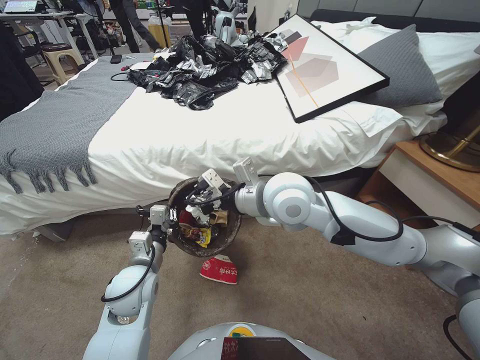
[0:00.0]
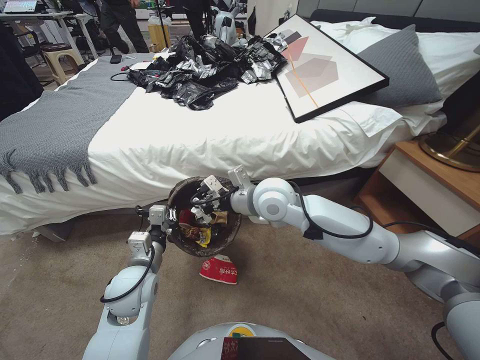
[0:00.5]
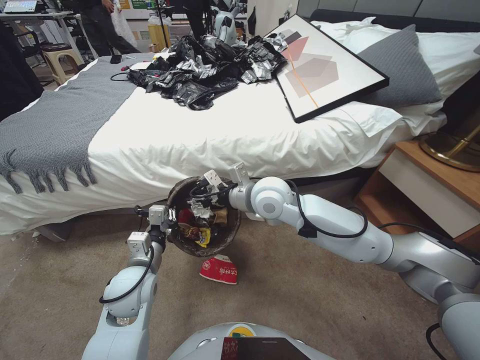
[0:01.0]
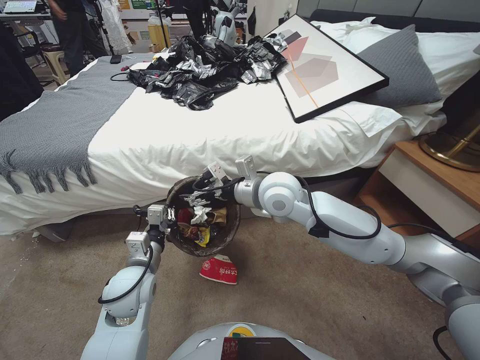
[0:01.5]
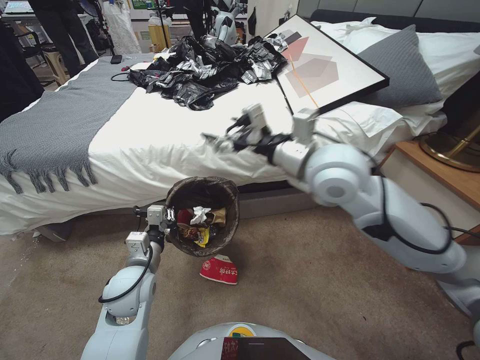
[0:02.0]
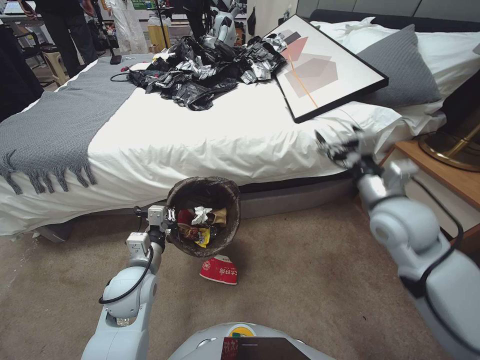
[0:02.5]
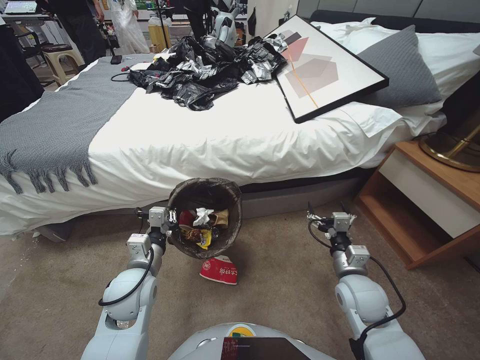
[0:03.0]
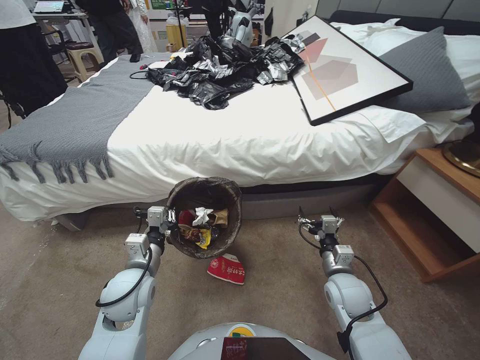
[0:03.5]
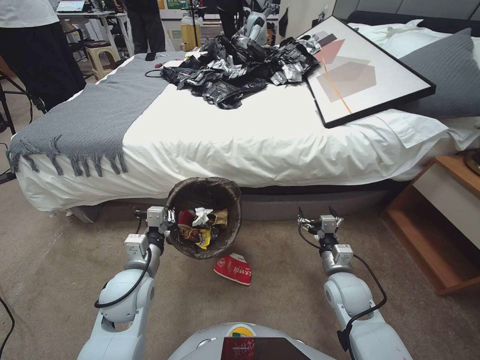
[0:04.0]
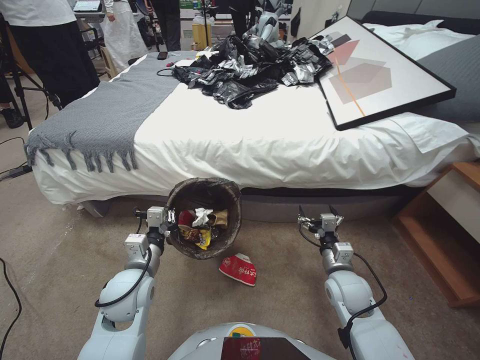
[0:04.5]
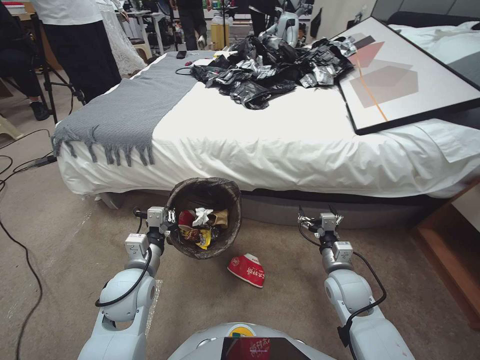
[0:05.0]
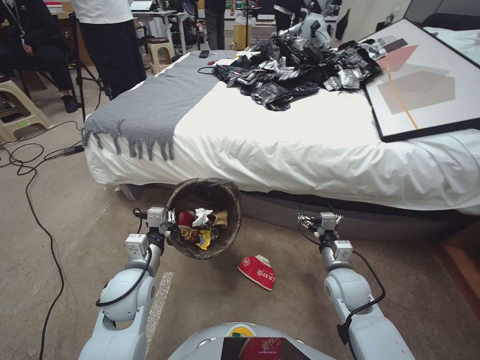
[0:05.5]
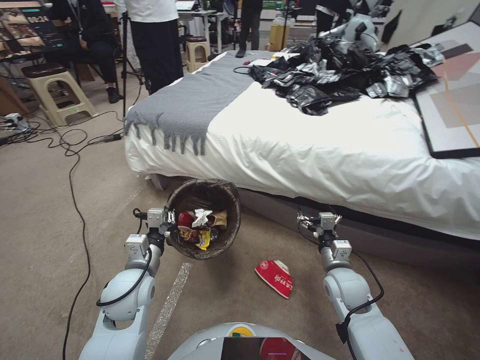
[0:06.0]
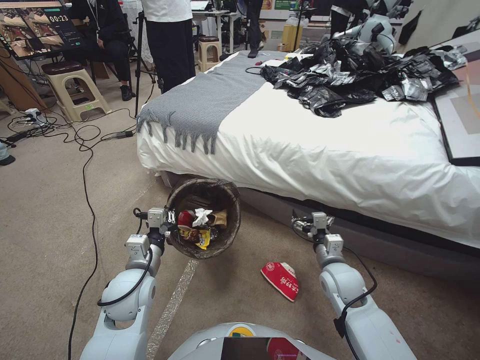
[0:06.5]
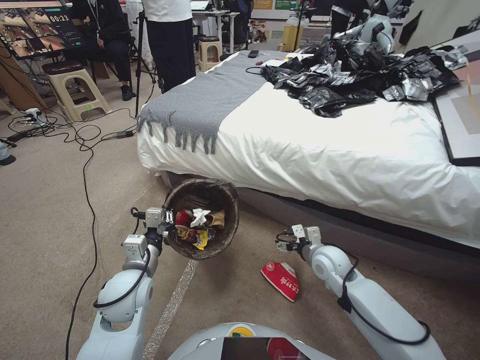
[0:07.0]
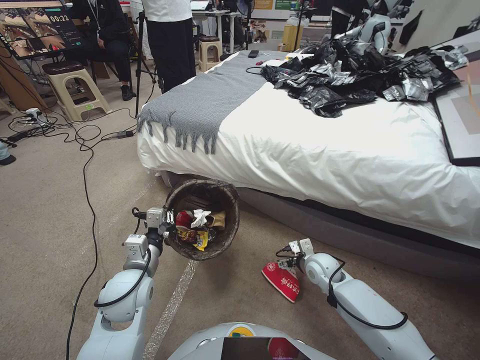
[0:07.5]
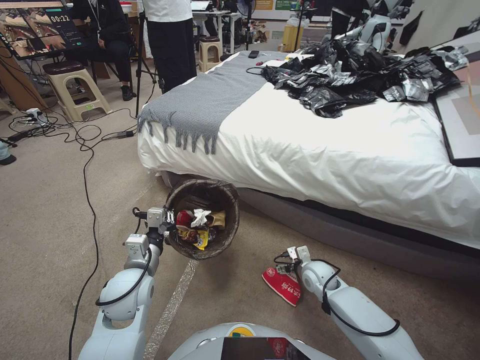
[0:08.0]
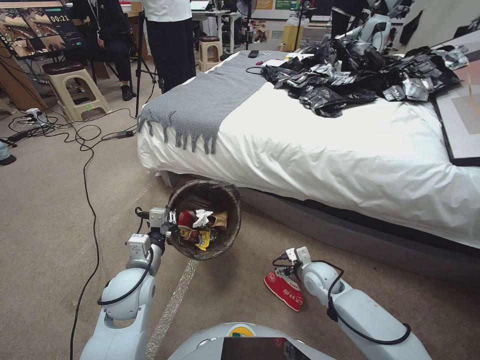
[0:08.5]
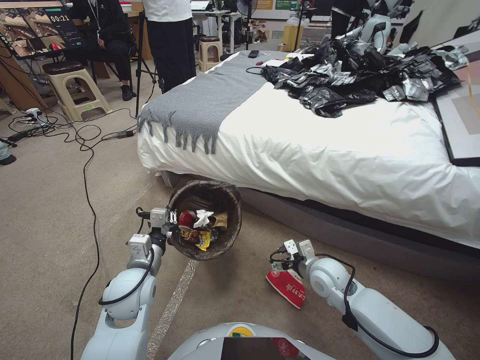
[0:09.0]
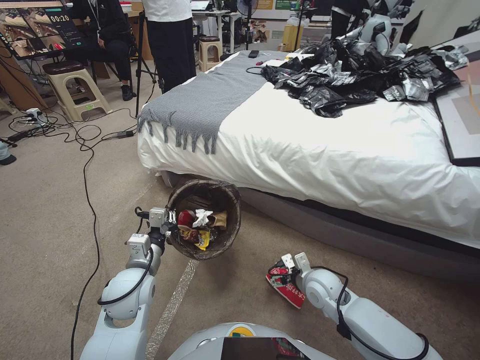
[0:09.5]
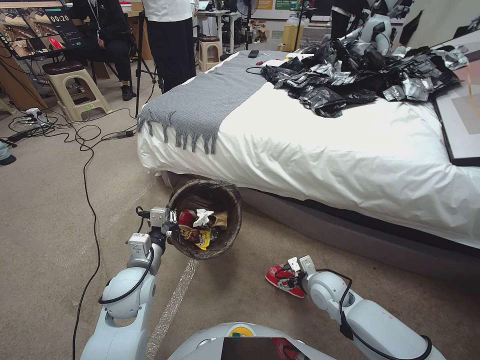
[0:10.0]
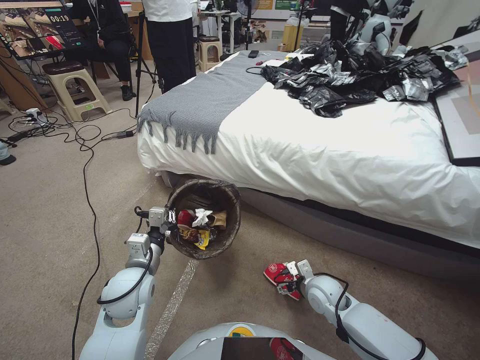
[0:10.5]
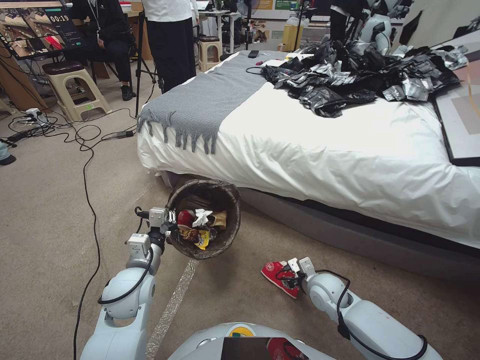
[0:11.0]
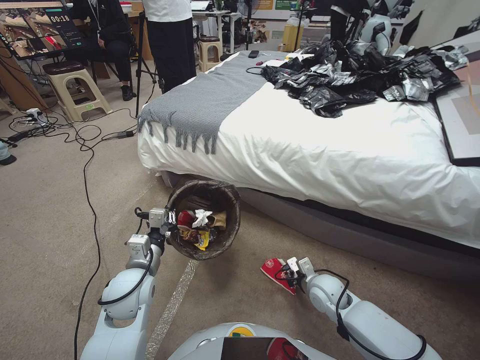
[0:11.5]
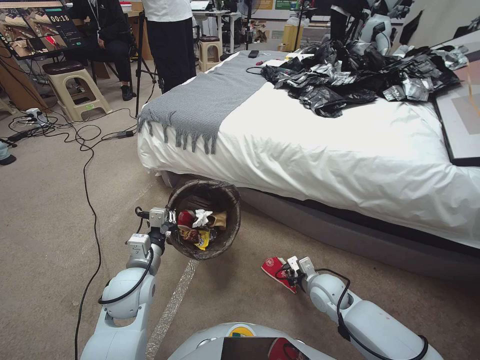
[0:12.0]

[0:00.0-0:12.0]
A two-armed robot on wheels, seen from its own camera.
Task of the whole recording: Pick up the trash bin, then pick up the garbage from the floor and place it into the trash bin.
0:00.0 to 0:02.0: The right gripper moves about 5 cm downward and comes back, and opens.
0:02.0 to 0:04.0: The right gripper shifts roughly 35 cm downward and to the right.
0:06.0 to 0:08.0: The right gripper shifts roughly 10 cm downward and forward.
0:08.0 to 0:10.0: The right gripper moves backward, approximately 5 cm.
0:10.0 to 0:12.0: The right gripper closes.

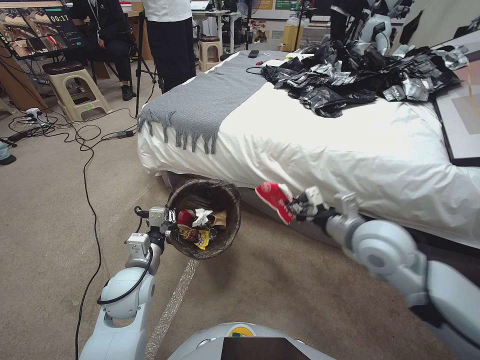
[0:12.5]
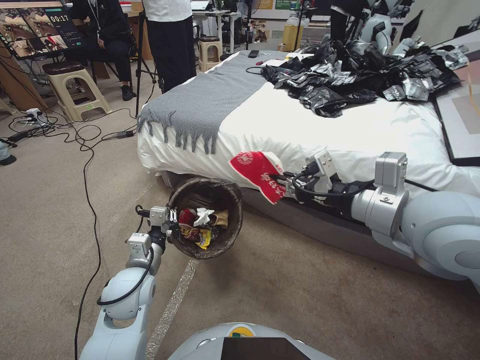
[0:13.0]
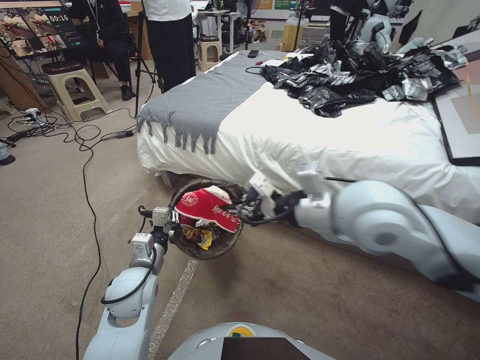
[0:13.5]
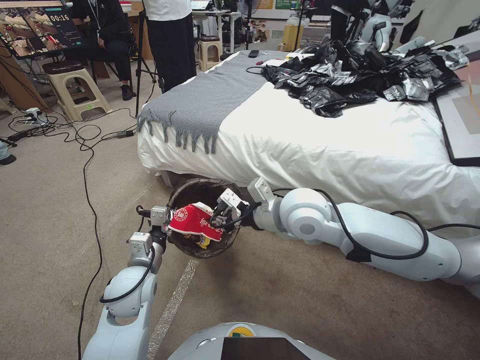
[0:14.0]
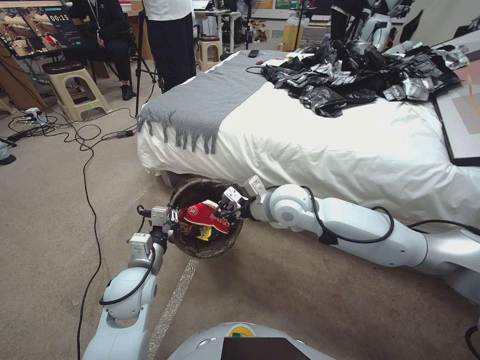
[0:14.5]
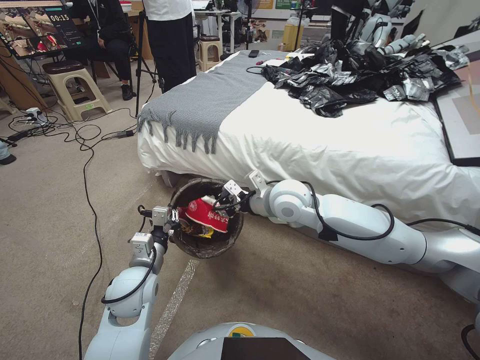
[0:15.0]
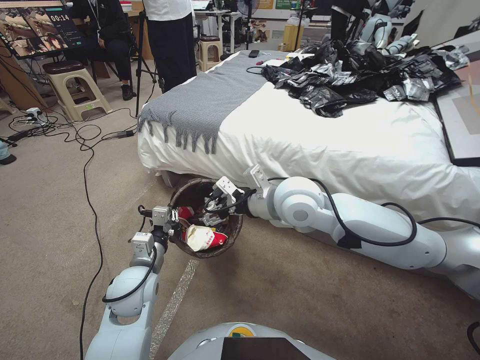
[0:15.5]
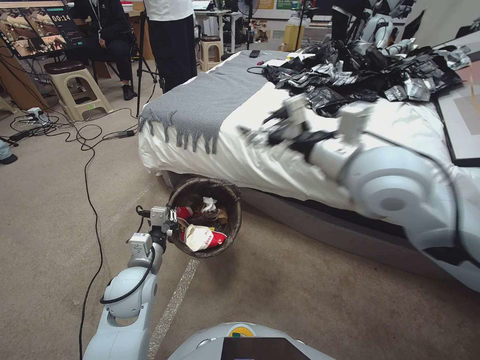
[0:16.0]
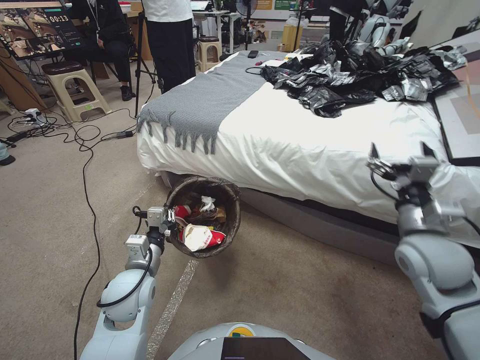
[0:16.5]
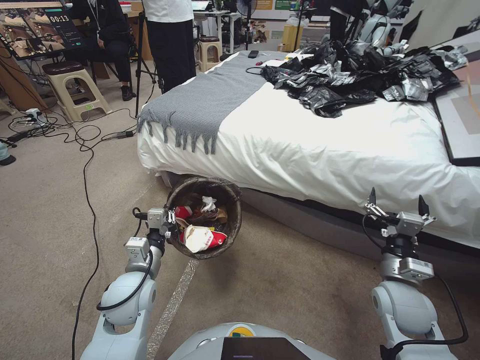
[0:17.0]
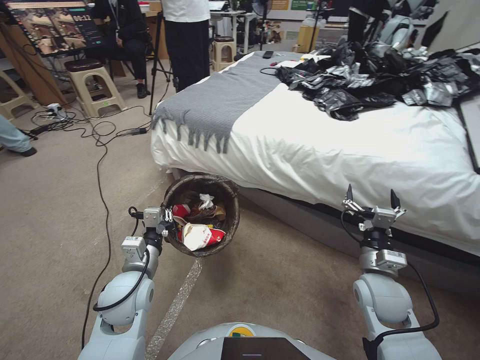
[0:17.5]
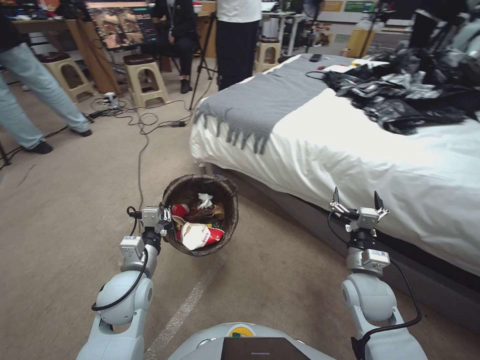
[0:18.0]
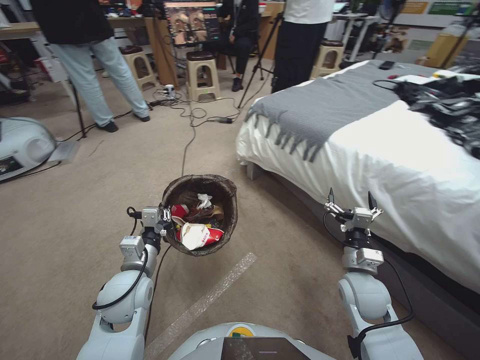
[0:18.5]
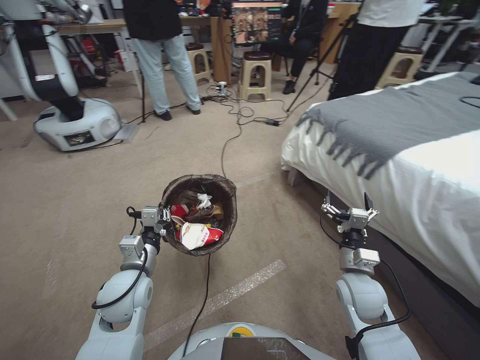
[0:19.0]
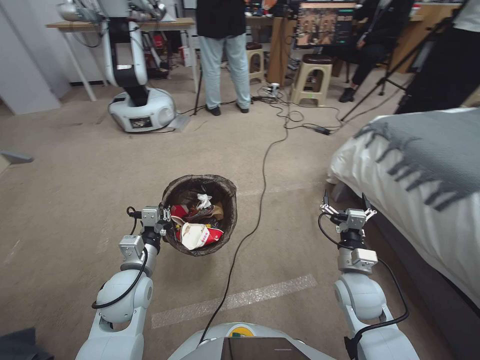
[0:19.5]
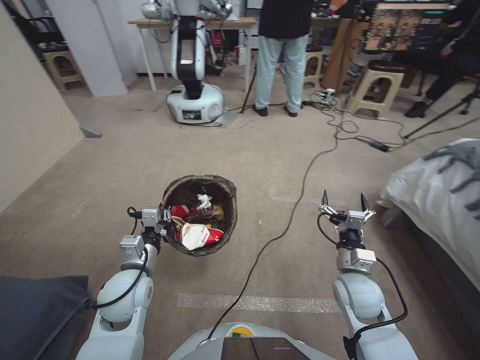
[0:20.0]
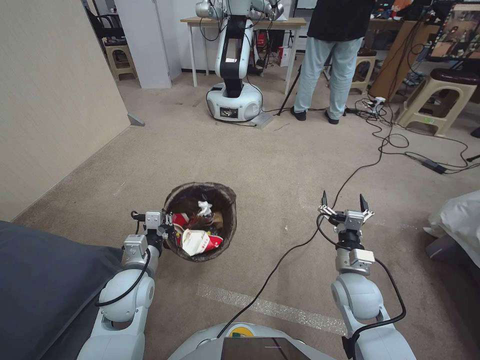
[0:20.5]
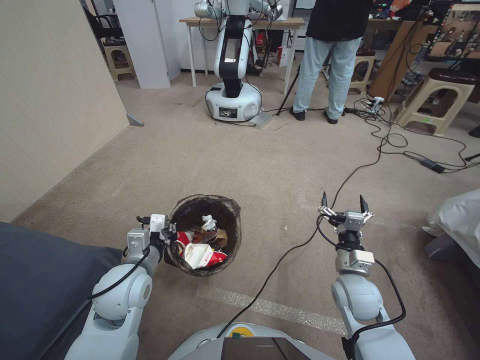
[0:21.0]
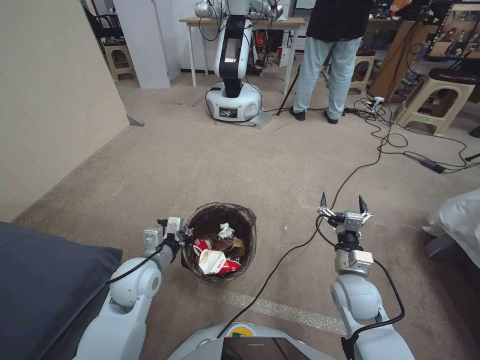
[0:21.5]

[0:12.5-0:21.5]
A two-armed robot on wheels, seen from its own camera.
Task of the whole recording: Pick up the trash bin, then pick up the garbage from the floor and place it into the trash bin.
0:12.5 to 0:14.5: The right gripper is displaced to the left and forward by roughly 15 cm, and goes upward and returns, approximately 20 cm each way.
0:14.5 to 0:17.0: The right gripper heads to the right, backward and downward, covering some 30 cm, and opens up.
0:17.0 to 0:19.5: The right gripper moves to the left, some 5 cm.

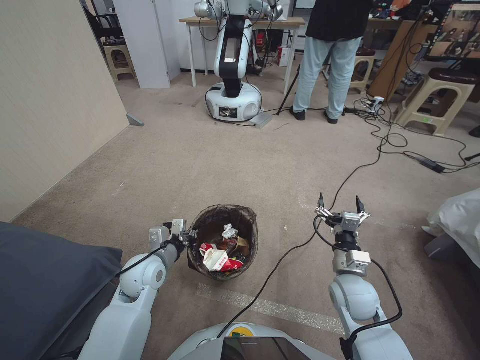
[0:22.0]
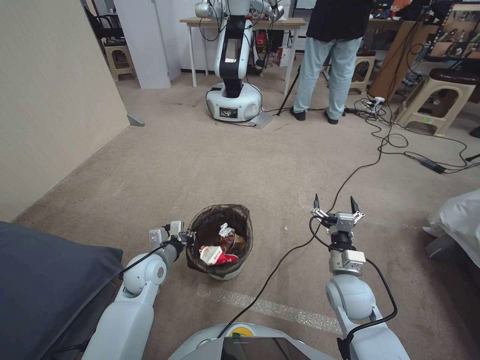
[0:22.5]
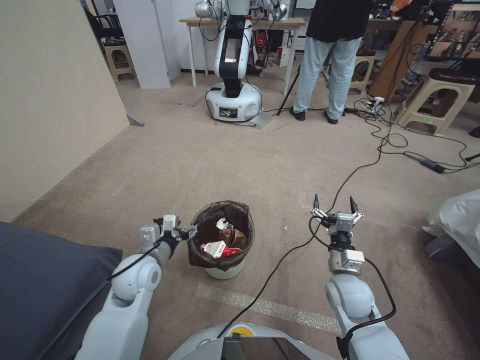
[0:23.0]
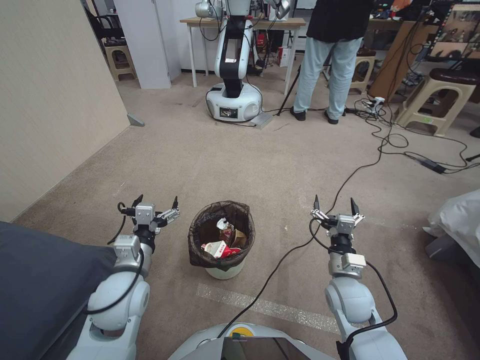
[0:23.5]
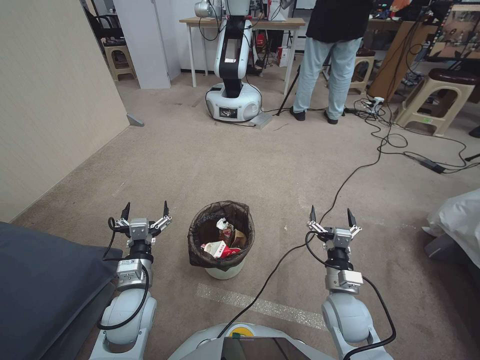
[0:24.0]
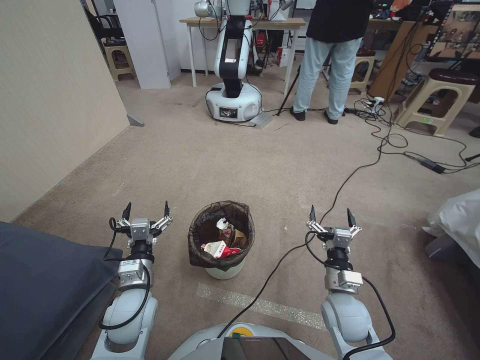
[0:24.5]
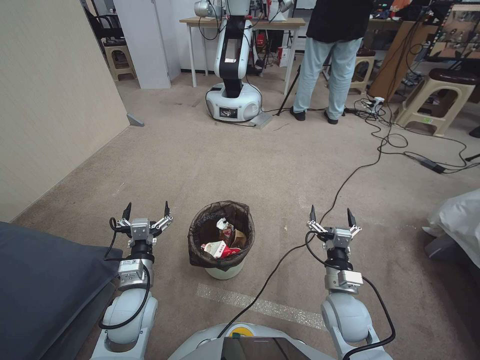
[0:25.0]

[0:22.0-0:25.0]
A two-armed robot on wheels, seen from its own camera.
Task of the whole recording: Pick up the trash bin, then pick up the garbage from the floor and place it into the trash bin.
0:22.0 to 0:23.5: The left gripper heads upward and backward, covering roughly 10 cm, and opens its fingers.
0:23.5 to 0:25.0: The left gripper is displaced downward by roughly 10 cm.

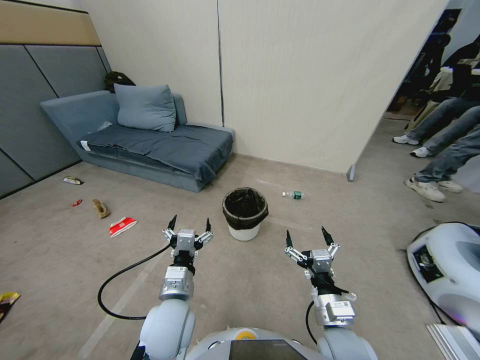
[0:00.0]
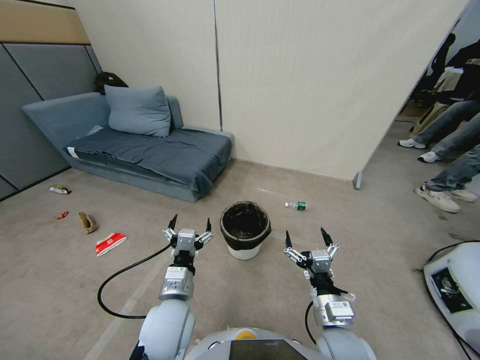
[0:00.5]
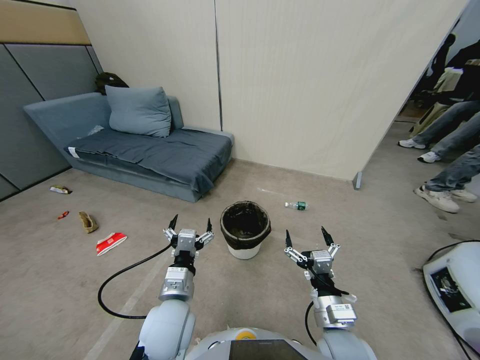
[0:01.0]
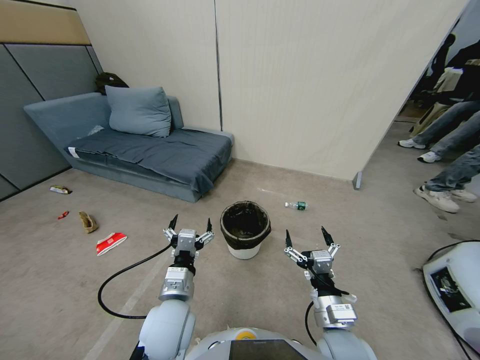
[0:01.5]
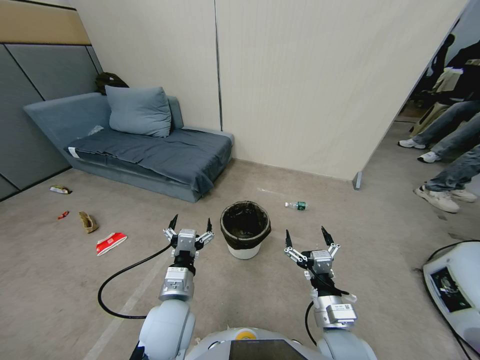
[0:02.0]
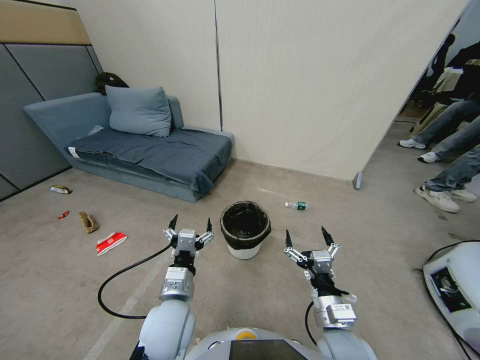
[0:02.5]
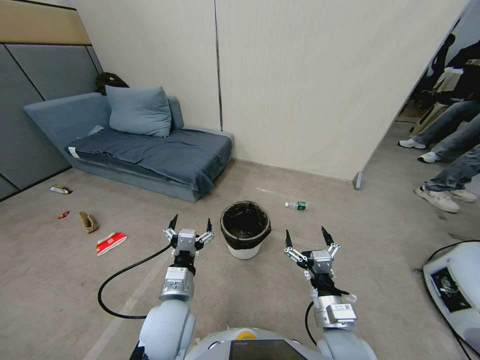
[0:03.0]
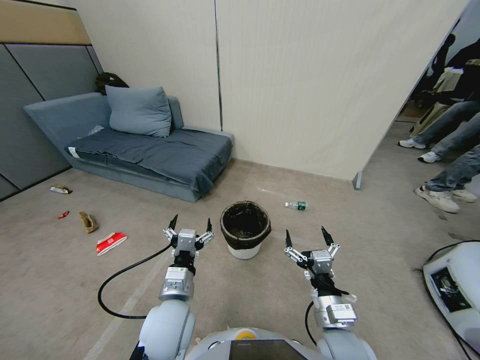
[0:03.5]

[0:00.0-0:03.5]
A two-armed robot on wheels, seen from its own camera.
Task of the whole recording: Pick up the trash bin, then pick up the garbage from the floor and place it into the trash bin.
0:00.0 to 0:03.5: Both grippers stay about where they are.
